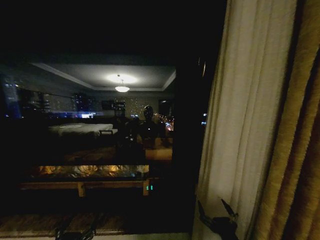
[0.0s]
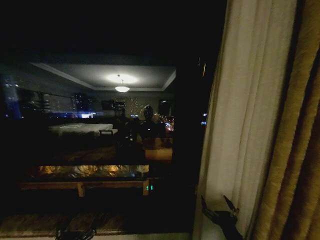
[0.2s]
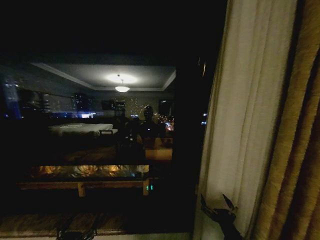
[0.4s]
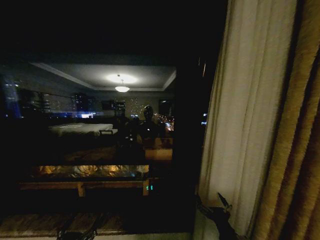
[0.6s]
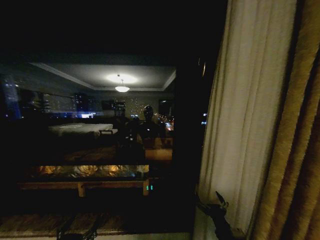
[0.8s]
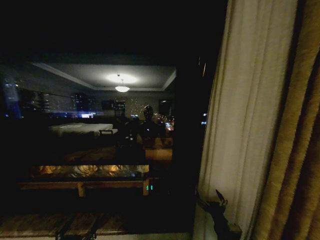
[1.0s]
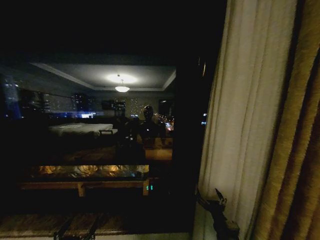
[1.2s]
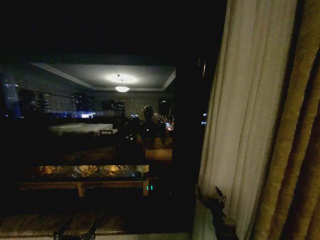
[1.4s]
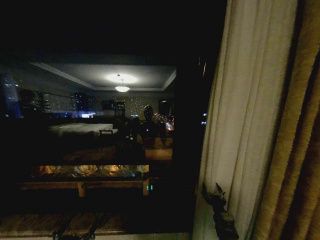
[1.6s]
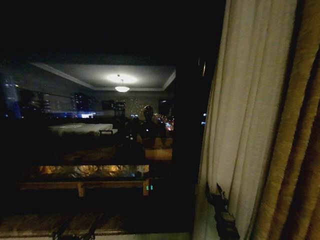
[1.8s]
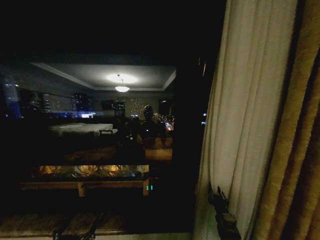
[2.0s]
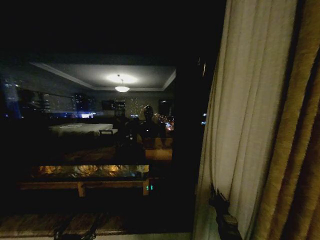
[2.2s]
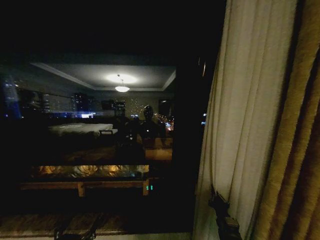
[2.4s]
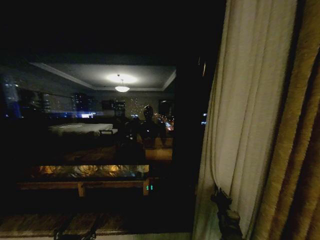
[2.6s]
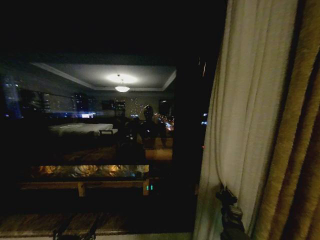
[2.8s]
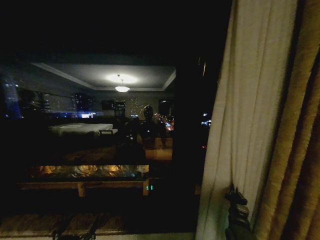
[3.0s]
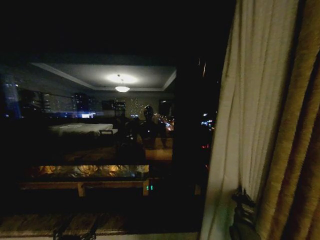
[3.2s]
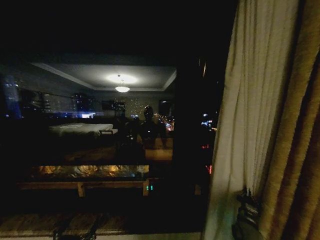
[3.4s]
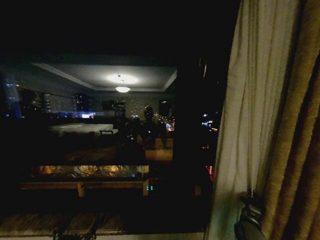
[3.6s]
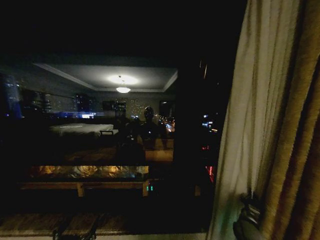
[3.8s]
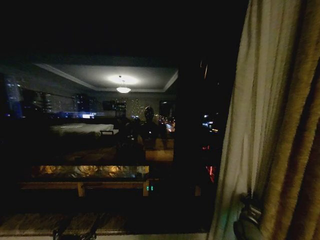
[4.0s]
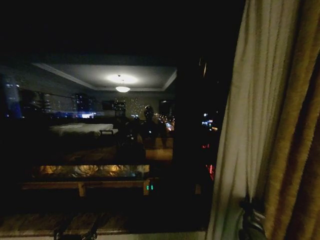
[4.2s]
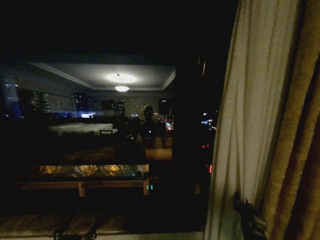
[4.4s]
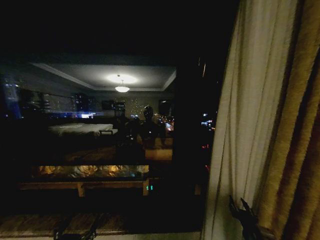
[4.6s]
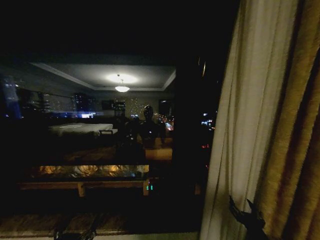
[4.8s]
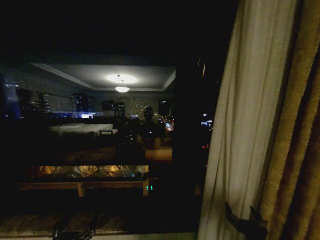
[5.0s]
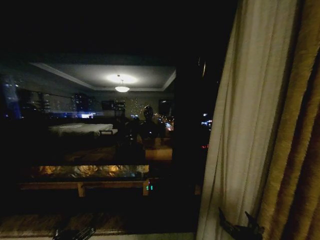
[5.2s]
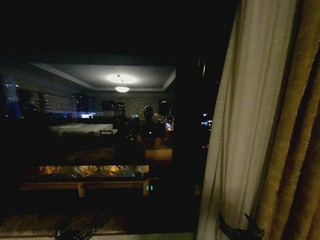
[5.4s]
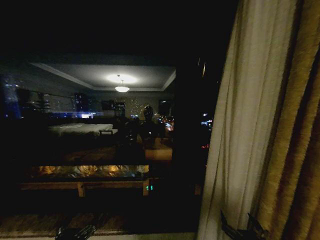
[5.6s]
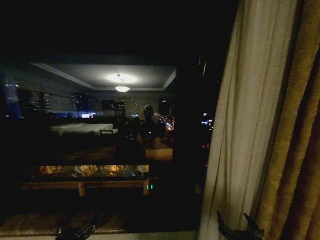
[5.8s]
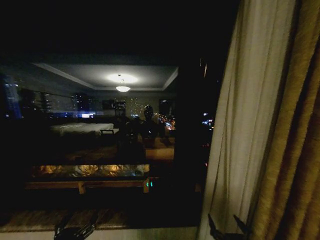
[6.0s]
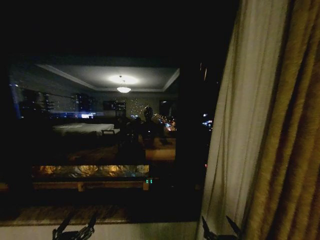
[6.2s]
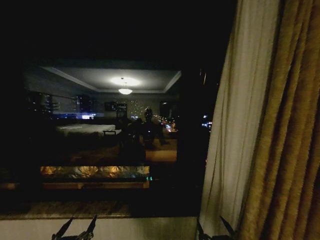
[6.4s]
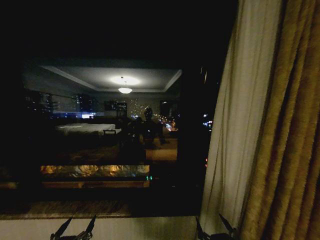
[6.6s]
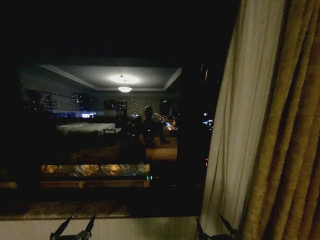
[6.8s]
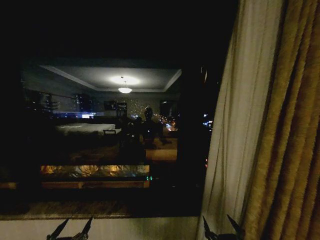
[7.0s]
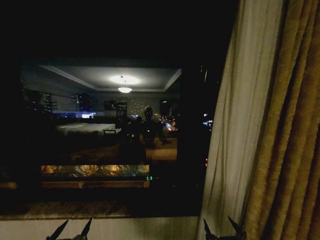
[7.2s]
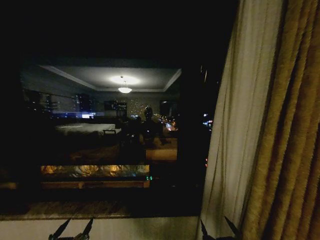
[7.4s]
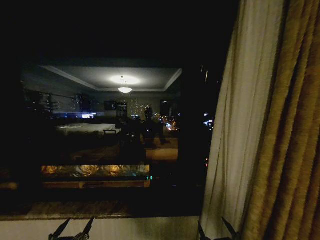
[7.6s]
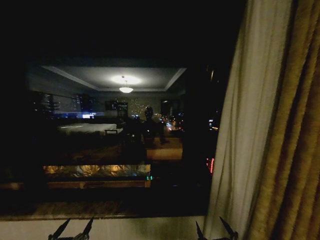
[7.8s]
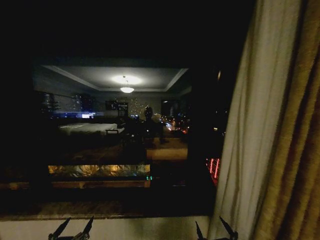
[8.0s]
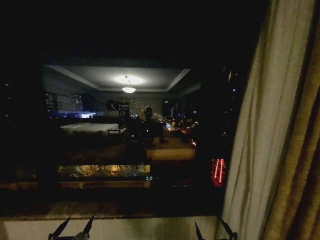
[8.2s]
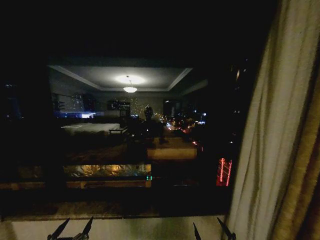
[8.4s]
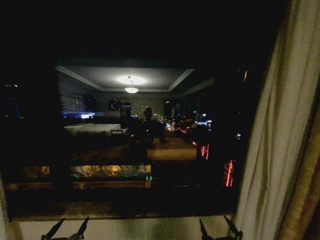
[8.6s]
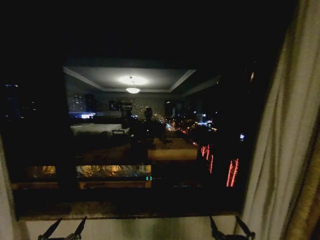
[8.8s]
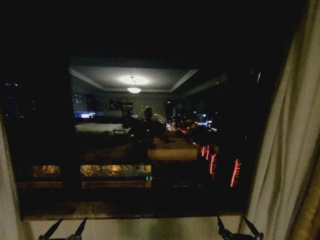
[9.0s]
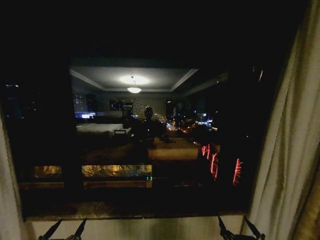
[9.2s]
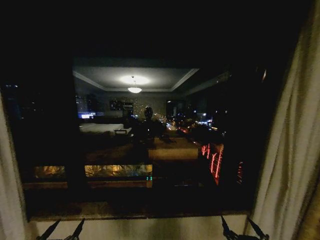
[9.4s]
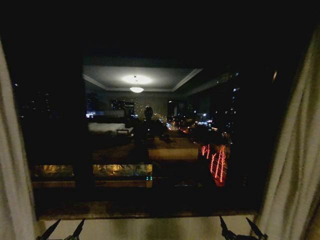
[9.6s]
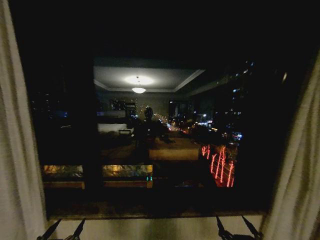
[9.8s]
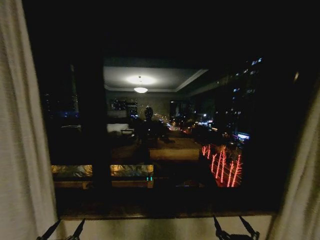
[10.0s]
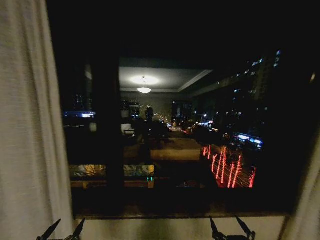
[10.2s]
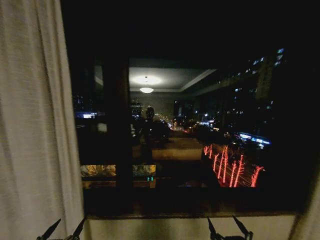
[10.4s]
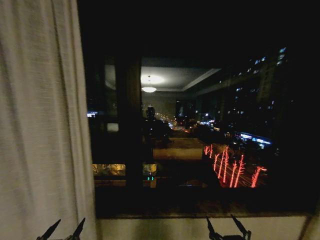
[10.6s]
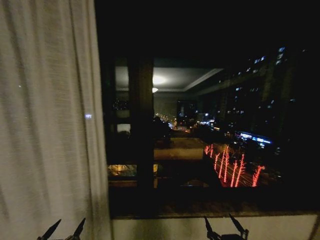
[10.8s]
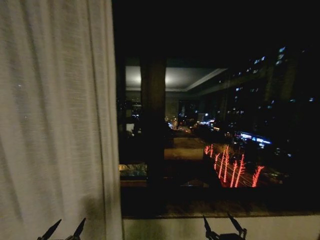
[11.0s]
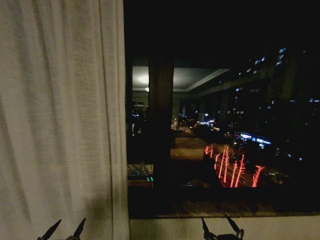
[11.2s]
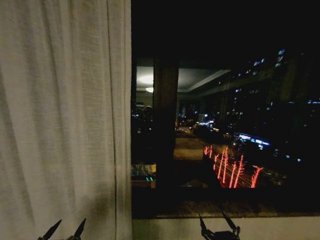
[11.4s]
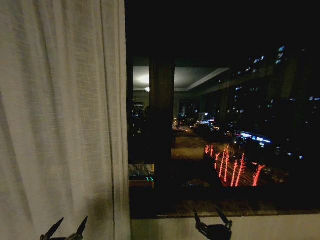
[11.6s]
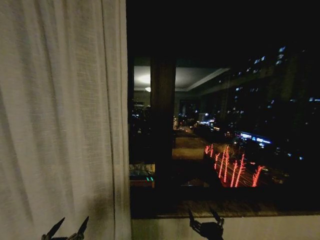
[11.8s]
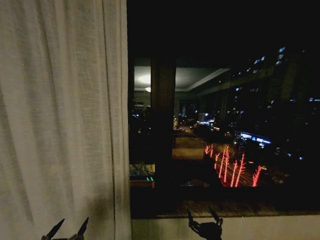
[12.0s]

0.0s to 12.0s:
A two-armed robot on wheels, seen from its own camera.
Task of the whole recording: Open the curtains by pulling them apart, changing their state from closed to fully open.
0.0s to 1.6s: The right gripper heads forward, covering roughly 15 cm.
1.6s to 3.0s: The right gripper is displaced to the right by approximately 5 cm, and closes its fingers.
3.0s to 4.4s: The right gripper moves backward, roughly 5 cm.
4.4s to 6.0s: The right gripper moves backward and to the left, roughly 20 cm, and opens its fingers.
6.0s to 7.6s: The grippers move only a little.
10.4s to 12.0s: The right gripper travels forward by about 5 cm.

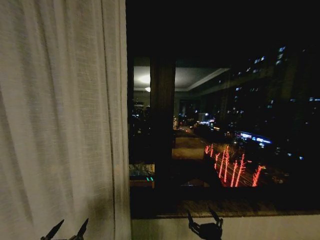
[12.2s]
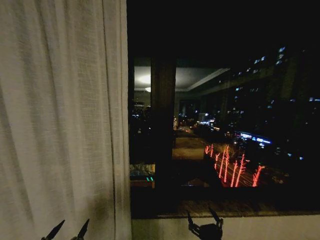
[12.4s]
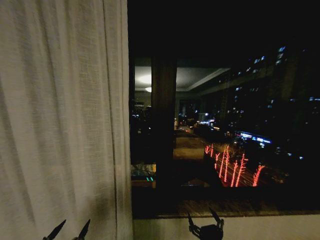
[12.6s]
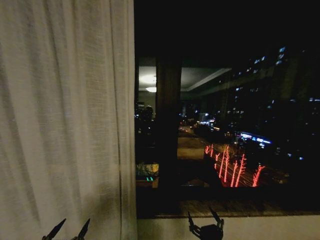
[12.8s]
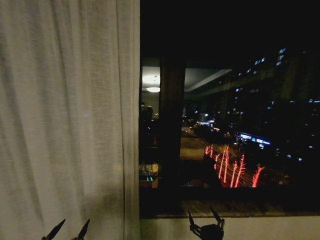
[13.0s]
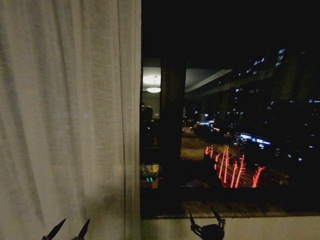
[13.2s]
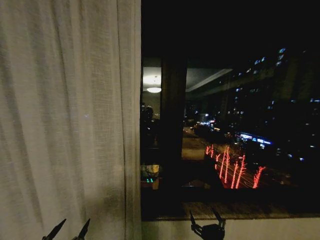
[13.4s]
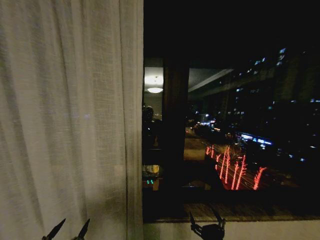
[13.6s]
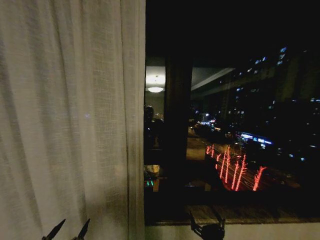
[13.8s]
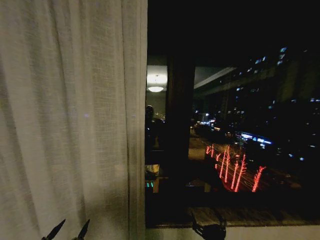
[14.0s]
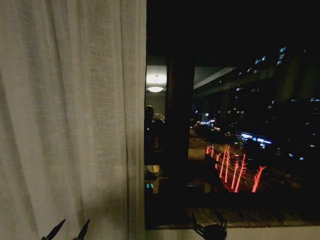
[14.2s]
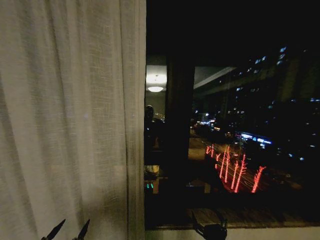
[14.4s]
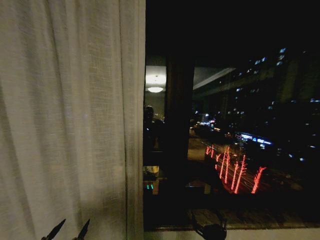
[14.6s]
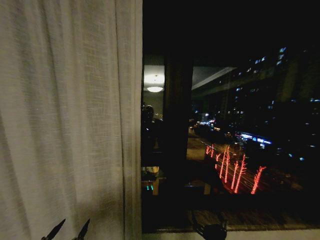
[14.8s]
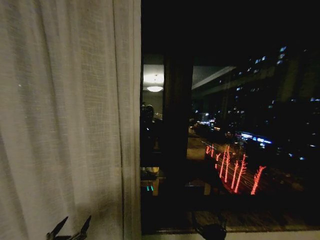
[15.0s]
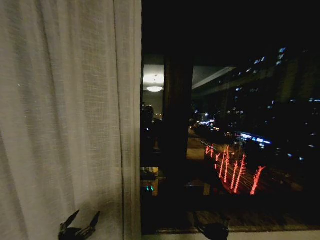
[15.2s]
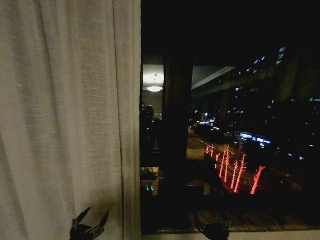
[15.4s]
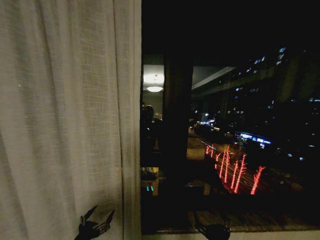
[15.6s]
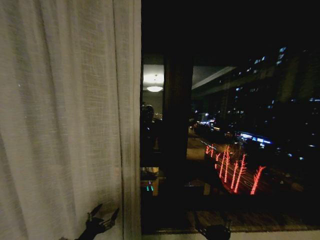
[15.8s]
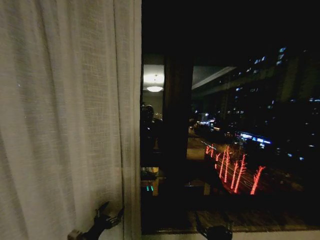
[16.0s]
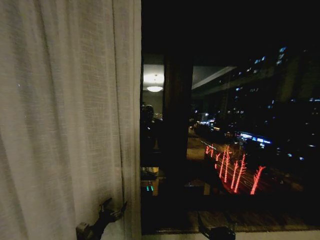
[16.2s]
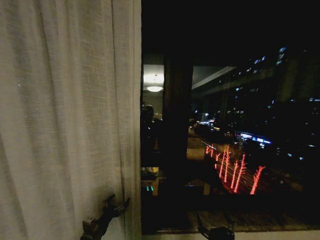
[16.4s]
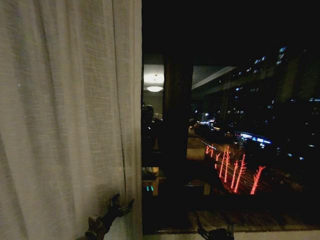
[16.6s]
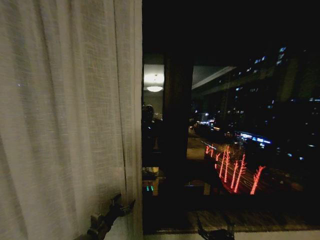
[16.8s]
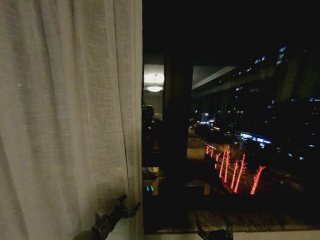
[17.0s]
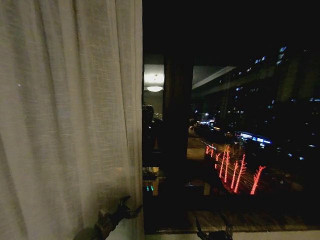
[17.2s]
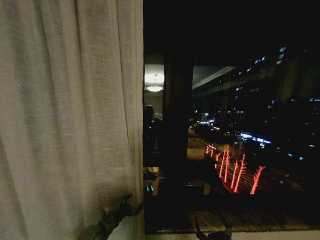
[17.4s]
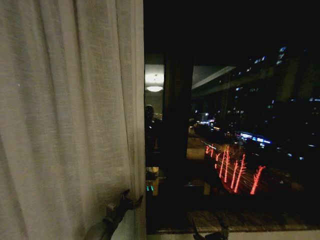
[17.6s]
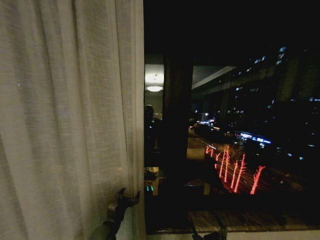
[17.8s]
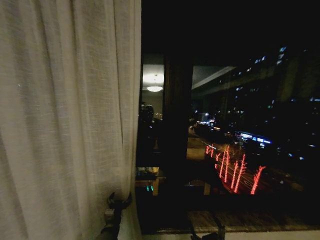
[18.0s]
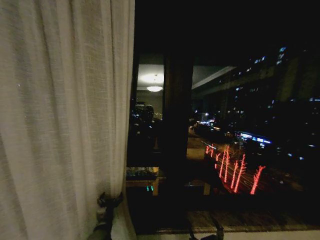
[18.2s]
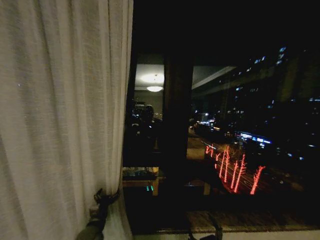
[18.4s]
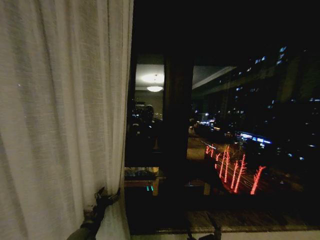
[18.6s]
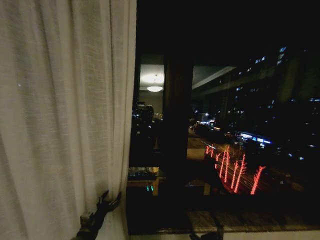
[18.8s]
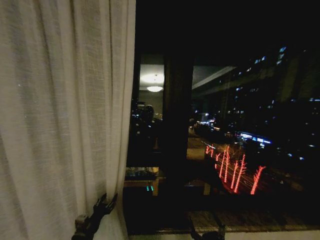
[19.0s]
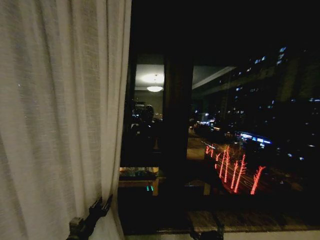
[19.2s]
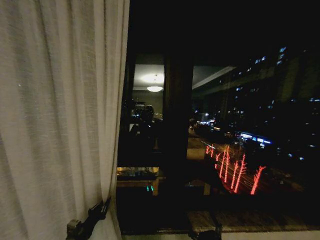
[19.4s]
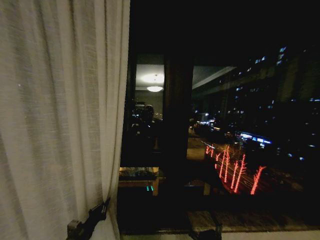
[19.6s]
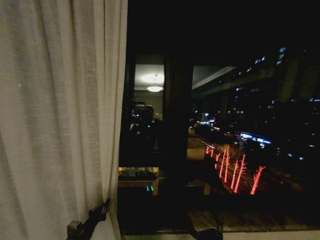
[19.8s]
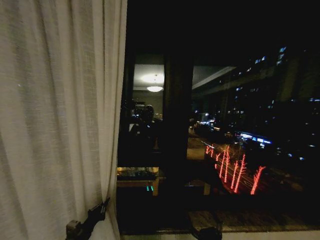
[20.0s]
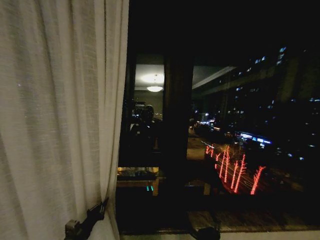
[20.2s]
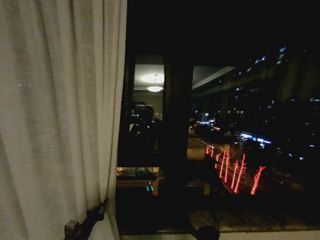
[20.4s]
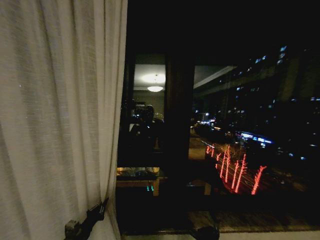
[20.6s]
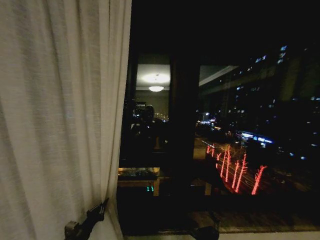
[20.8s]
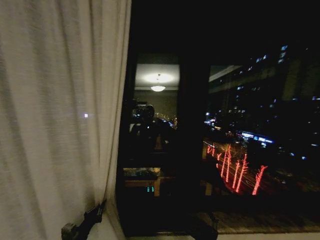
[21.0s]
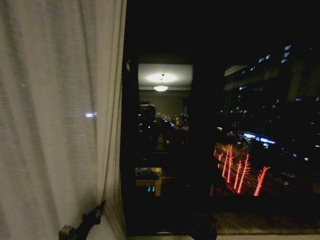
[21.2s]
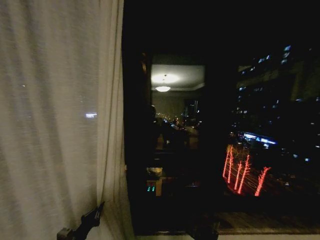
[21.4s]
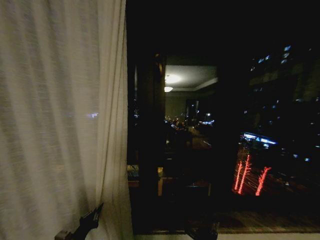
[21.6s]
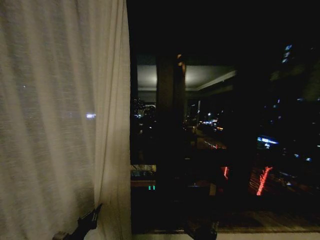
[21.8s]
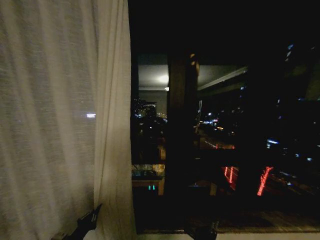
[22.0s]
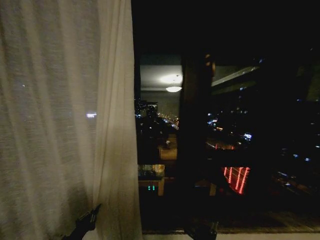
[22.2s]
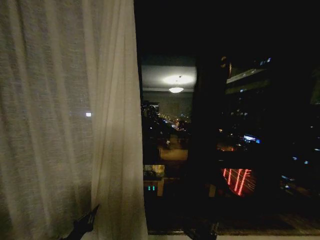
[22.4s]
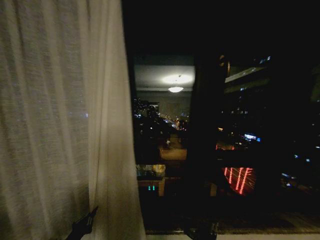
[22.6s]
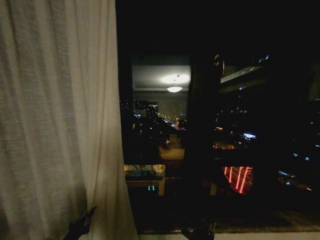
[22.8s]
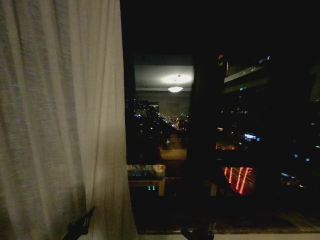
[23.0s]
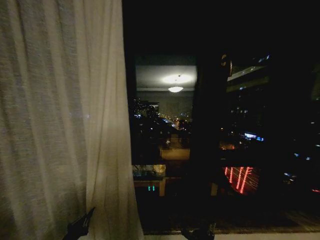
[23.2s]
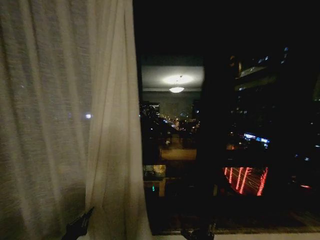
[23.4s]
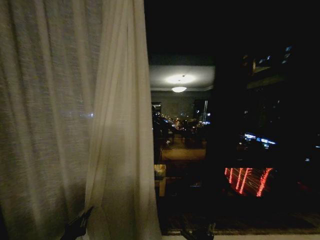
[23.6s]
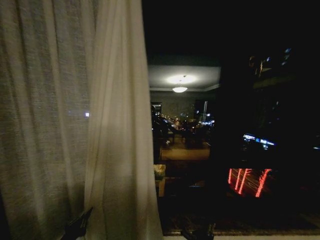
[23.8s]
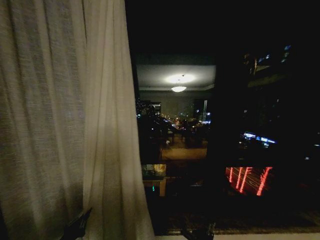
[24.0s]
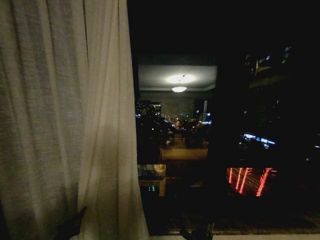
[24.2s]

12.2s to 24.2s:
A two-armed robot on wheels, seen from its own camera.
Task of the whole recording: Open the curtains by pulling them apart, changing their state from closed to fully open.
12.2s to 13.8s: The grippers make only small movements.
13.8s to 15.2s: The left gripper heads forward, covering roughly 5 cm.
15.2s to 16.6s: The left gripper is displaced forward by roughly 15 cm.
16.6s to 18.2s: The left gripper travels to the right by approximately 5 cm.
18.2s to 19.8s: The left gripper travels to the left and backward by roughly 10 cm, and closes its fingers.
19.8s to 21.2s: There are only small adjustments of the grippers.
22.6s to 24.2s: The grippers stay close to where they were, moving slightly.
